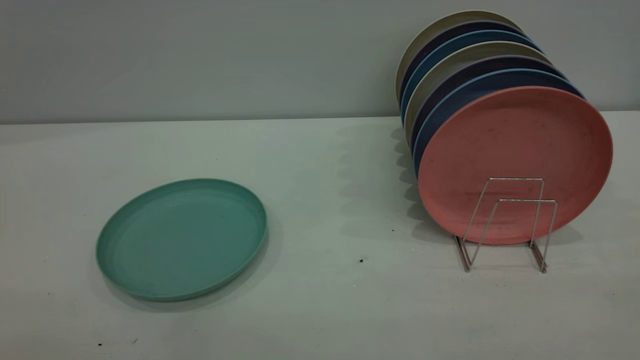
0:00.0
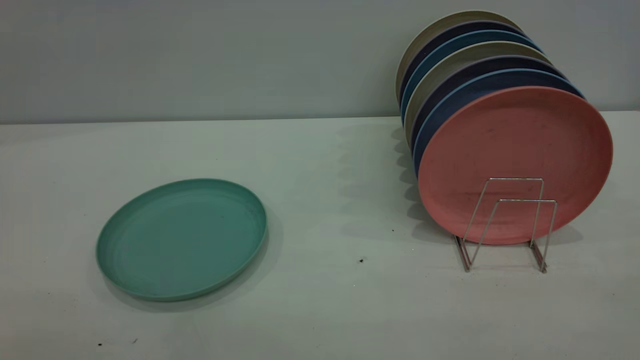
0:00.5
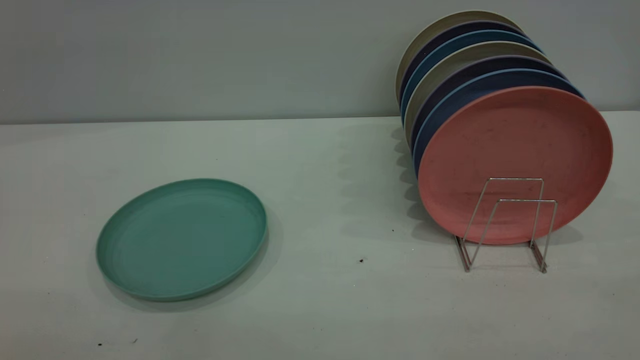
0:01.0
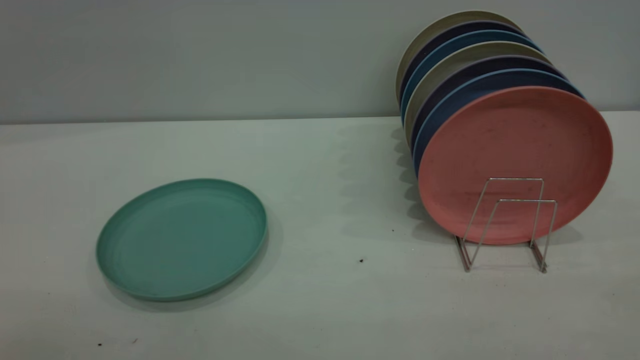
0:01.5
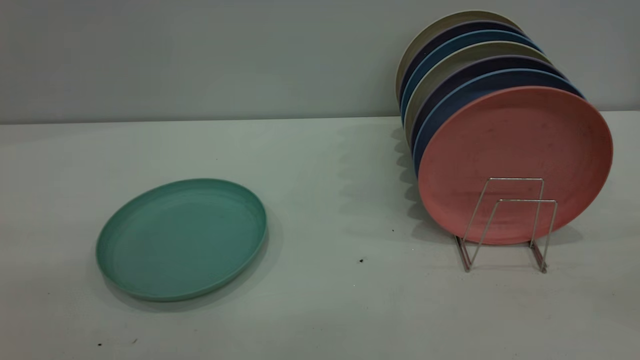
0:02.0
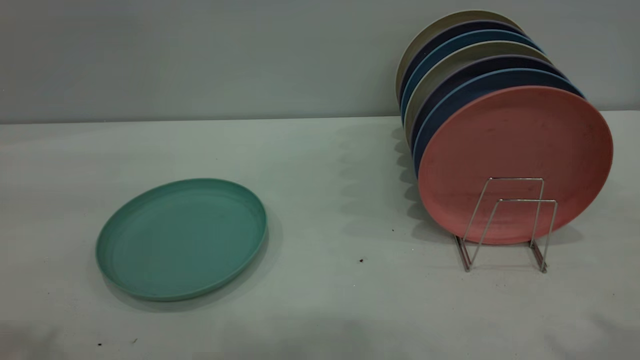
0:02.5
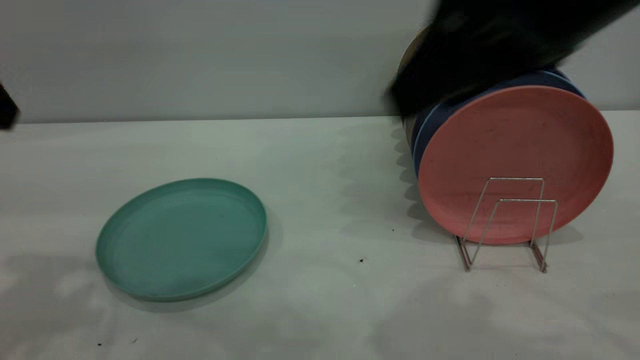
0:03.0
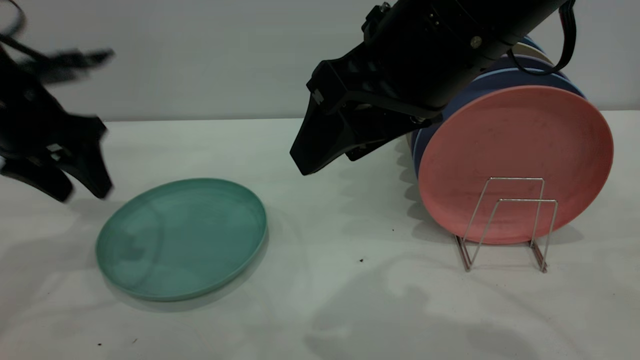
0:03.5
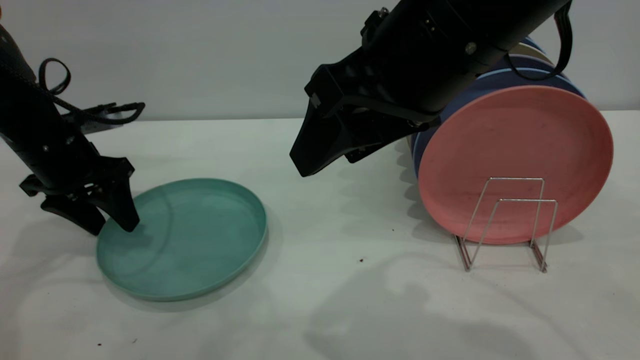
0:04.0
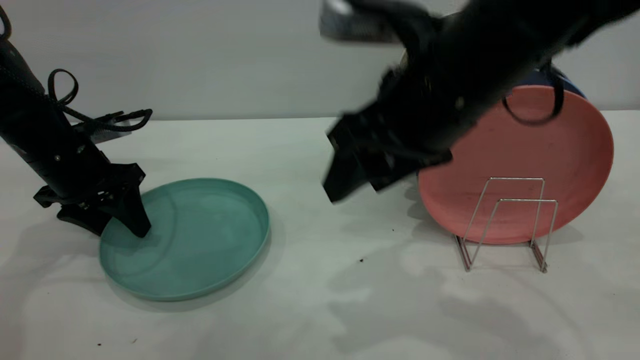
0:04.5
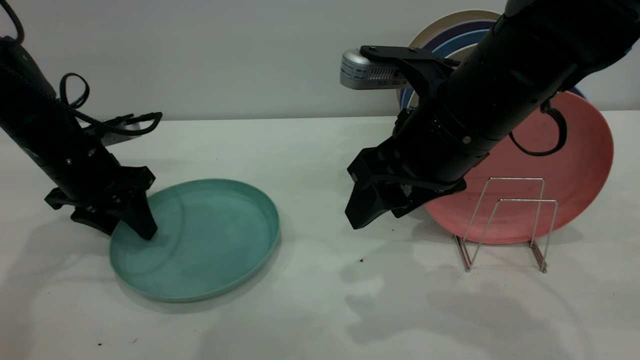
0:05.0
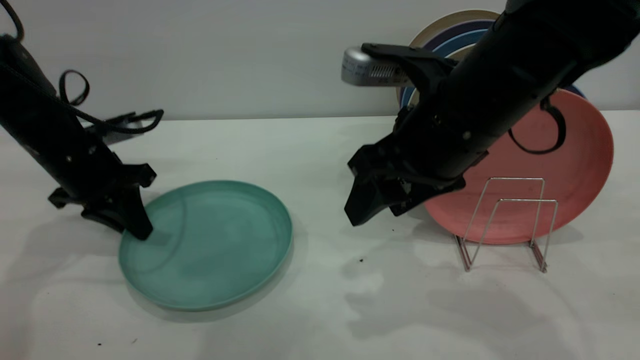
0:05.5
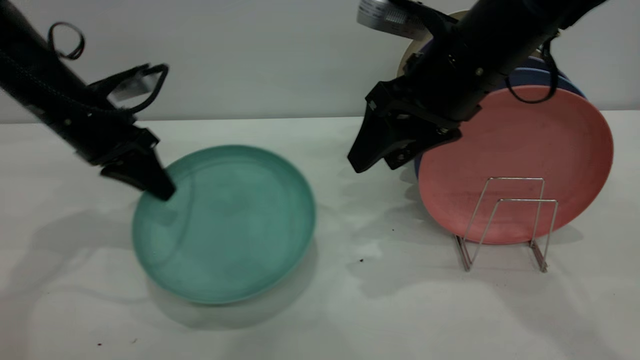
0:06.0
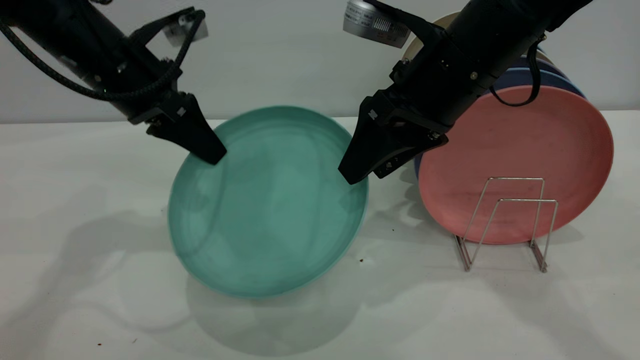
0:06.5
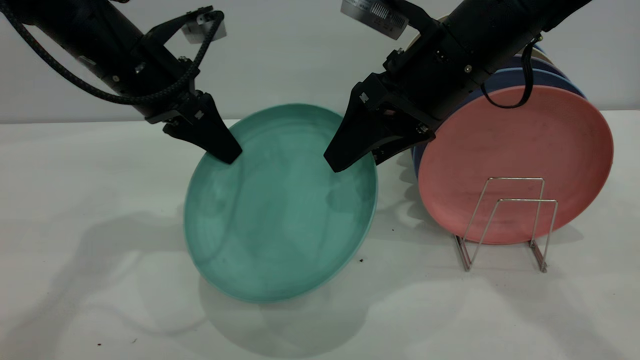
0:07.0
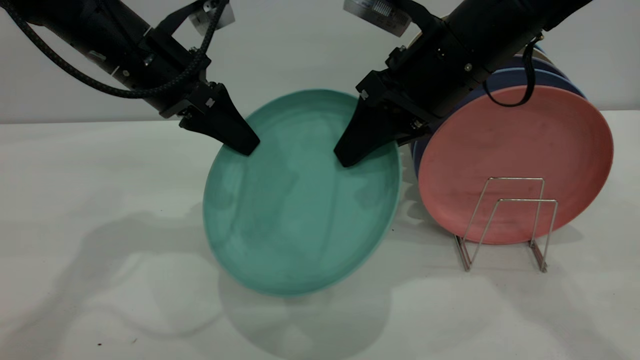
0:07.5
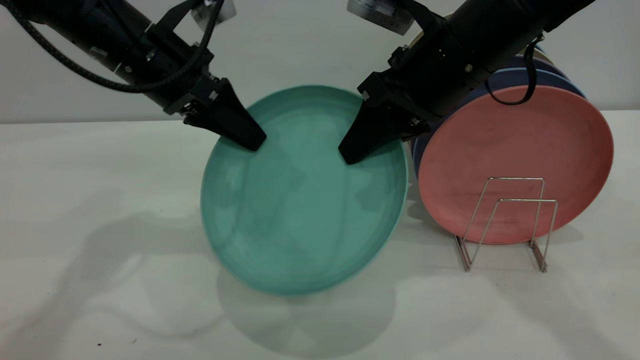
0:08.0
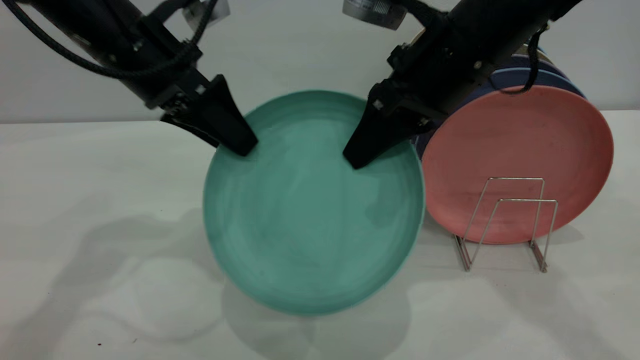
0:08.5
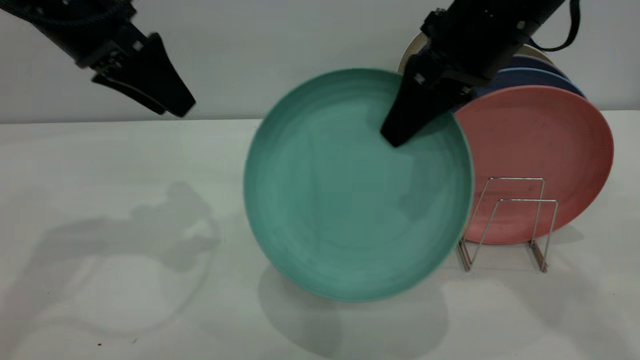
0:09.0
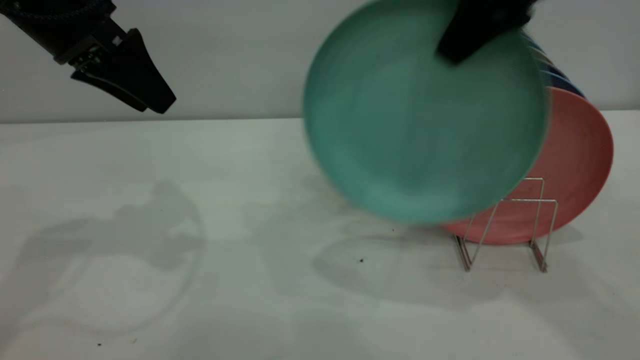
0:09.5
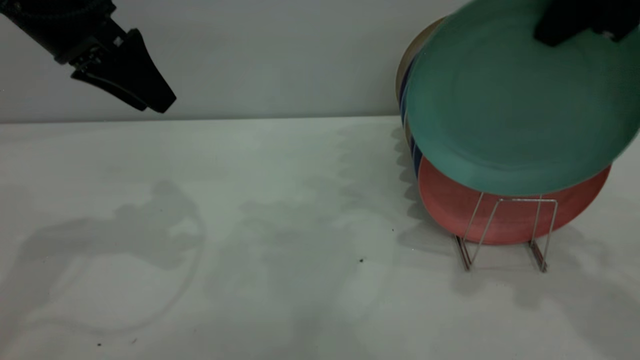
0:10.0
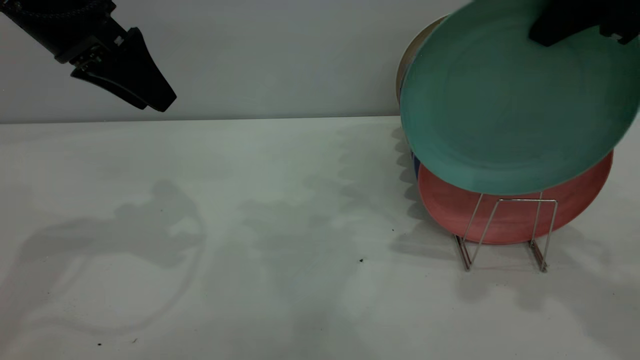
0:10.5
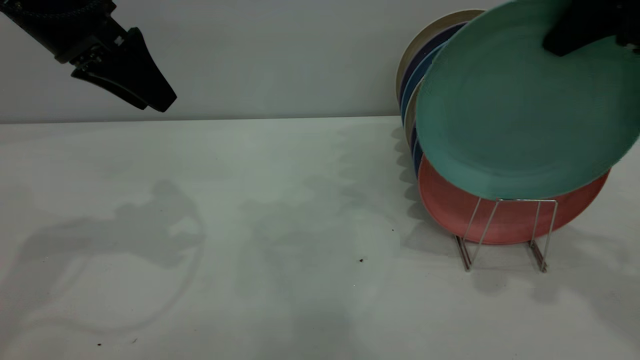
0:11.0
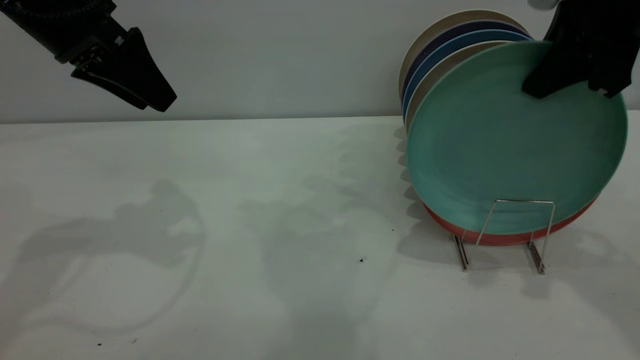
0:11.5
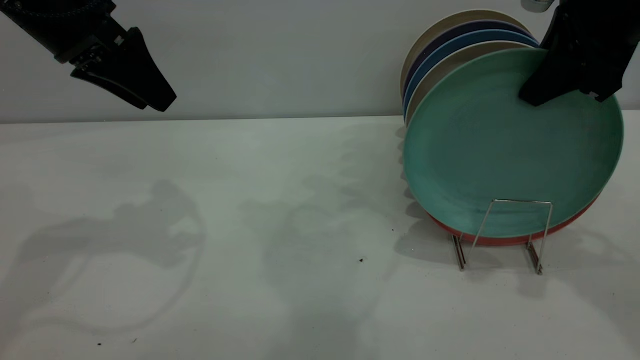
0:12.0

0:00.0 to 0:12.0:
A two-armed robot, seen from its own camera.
Task of the whole recording: the left gripper grasp the green plate, the left gripper pass the green plate to the right gripper, and the right gripper place the green plate on the plate rack.
Step, 0:00.0 to 0:05.5: Pick up the plate with the left gripper.
Step, 0:06.0 to 0:08.5: Pass the plate from the left gripper to the right gripper.
0:02.0 to 0:04.0: The left gripper goes some 40 cm forward and downward, while the right gripper moves to the left, forward and downward, about 30 cm.
0:04.0 to 0:06.0: The right gripper shifts approximately 10 cm forward and downward. Meanwhile the left gripper ends up some 5 cm from where it was, and closes up.
0:06.0 to 0:08.0: The left gripper travels to the right and upward by roughly 10 cm. The right gripper closes.
0:08.0 to 0:10.0: The right gripper travels upward and to the right by some 15 cm; the left gripper travels to the left and upward by about 10 cm, and opens its fingers.
0:10.0 to 0:12.0: The right gripper shifts some 5 cm downward.

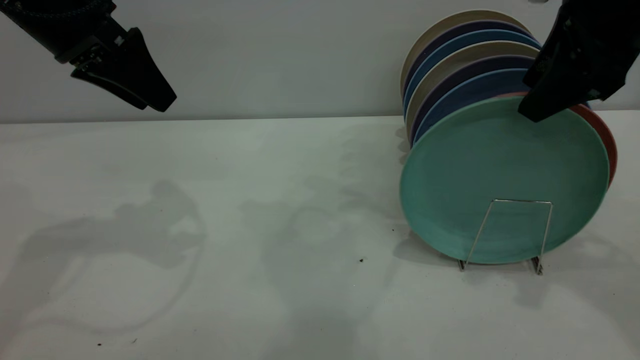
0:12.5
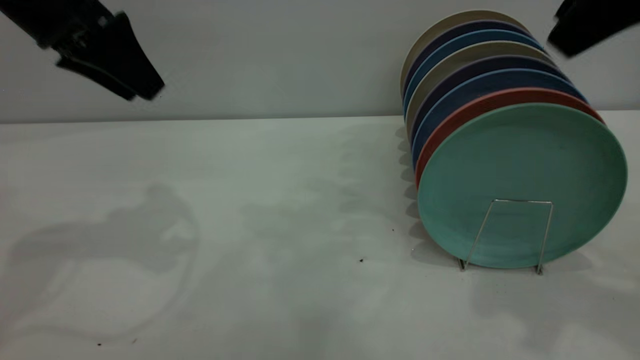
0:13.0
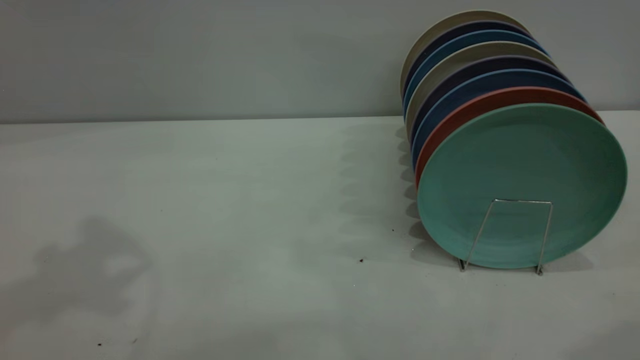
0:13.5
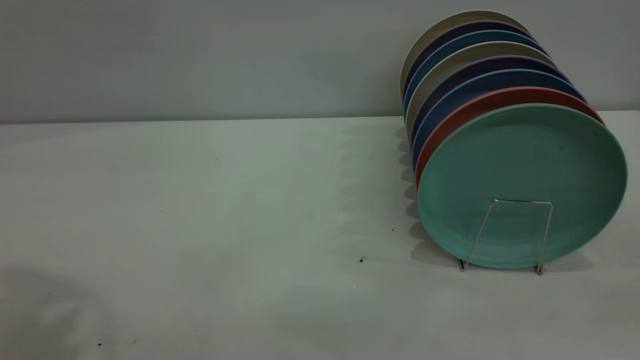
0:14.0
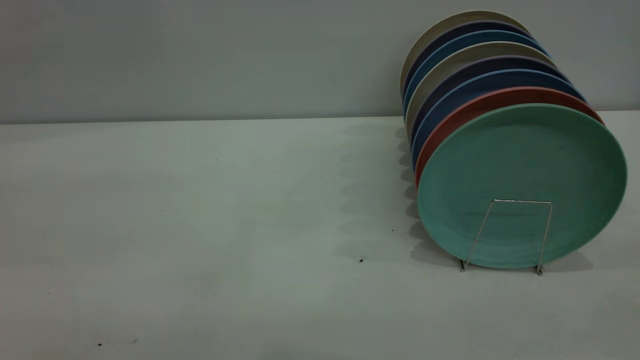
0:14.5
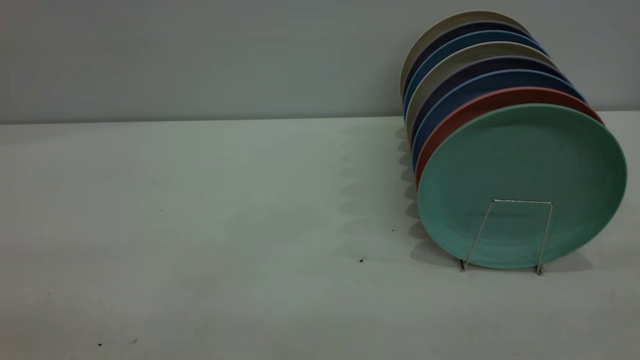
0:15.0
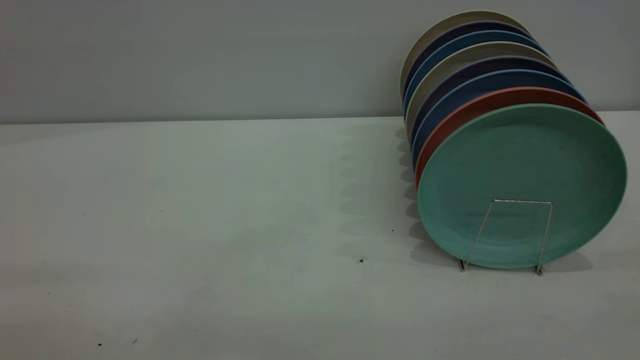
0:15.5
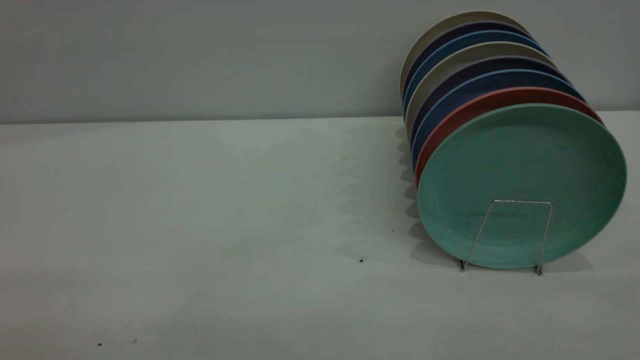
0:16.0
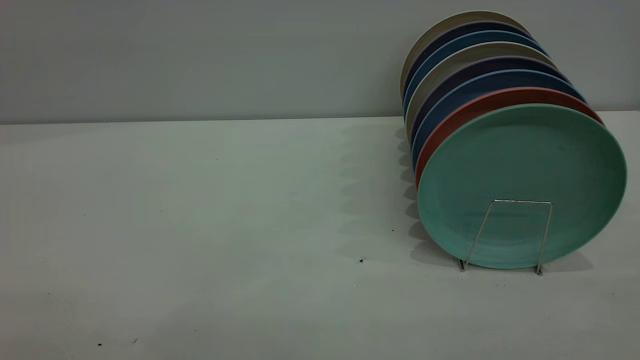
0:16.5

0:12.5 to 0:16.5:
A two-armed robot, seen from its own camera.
Task of the whole recording: the left gripper grasp the green plate, the left gripper pass the green plate to the right gripper, and the right gripper place the green plate on the plate rack.
0:12.5 to 0:14.5: The right gripper heads backward, covering about 30 cm. The left gripper shifts roughly 30 cm backward and upward.

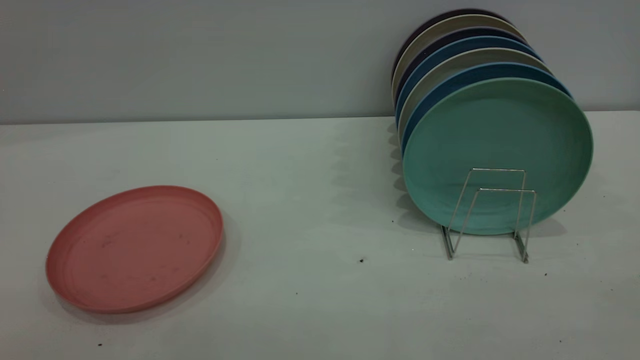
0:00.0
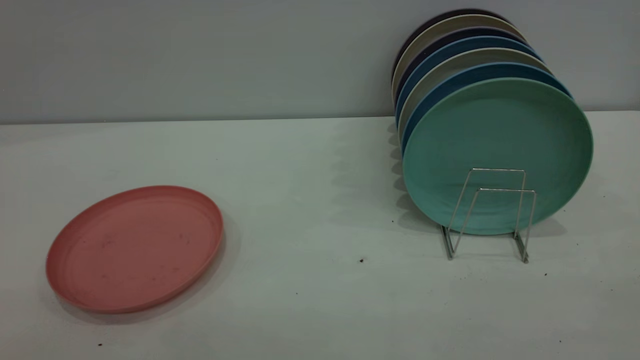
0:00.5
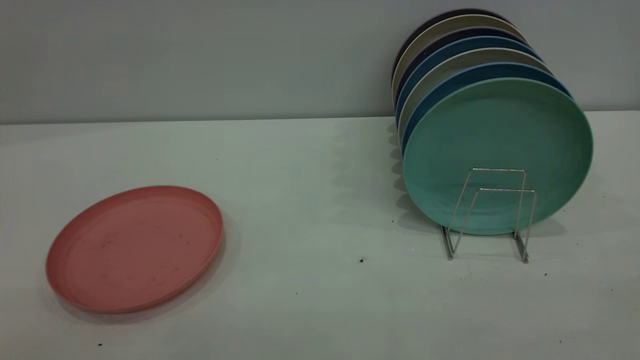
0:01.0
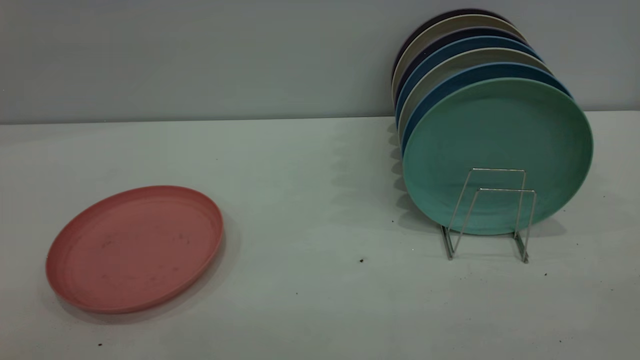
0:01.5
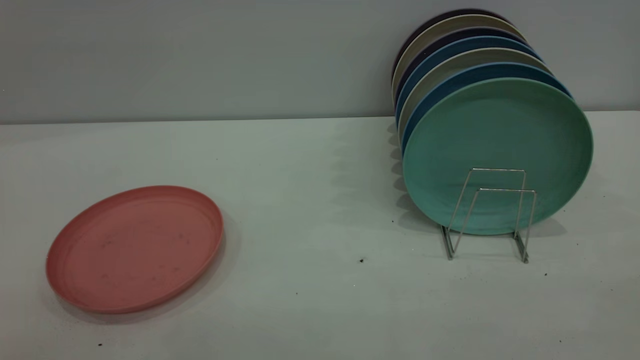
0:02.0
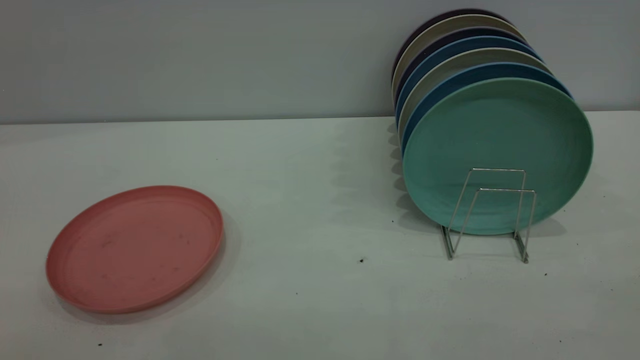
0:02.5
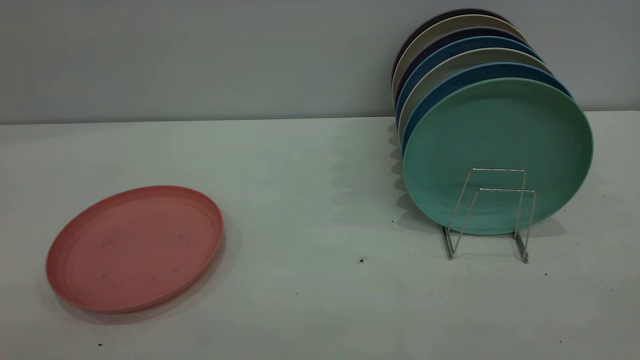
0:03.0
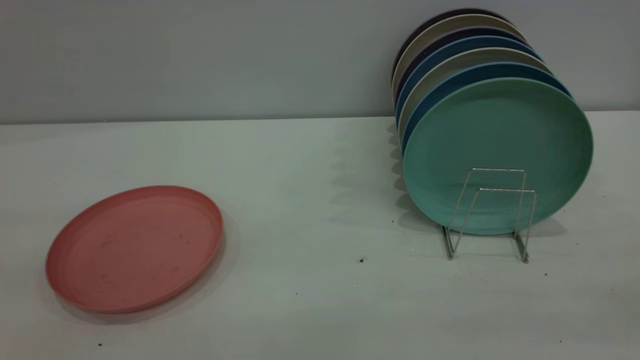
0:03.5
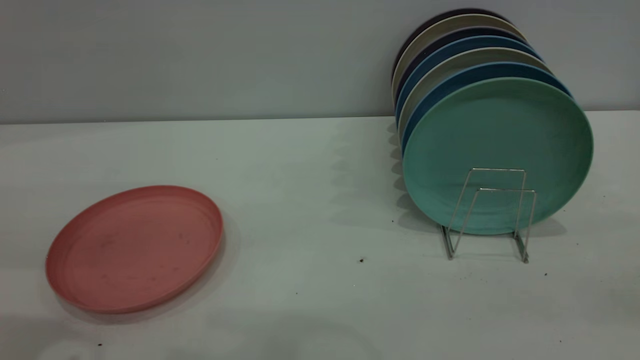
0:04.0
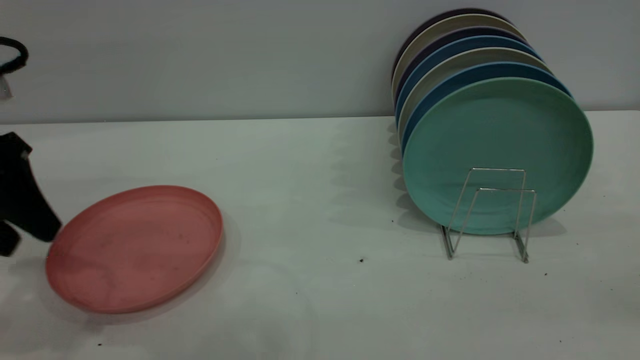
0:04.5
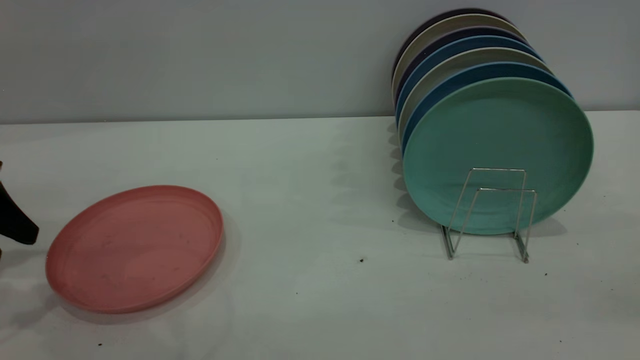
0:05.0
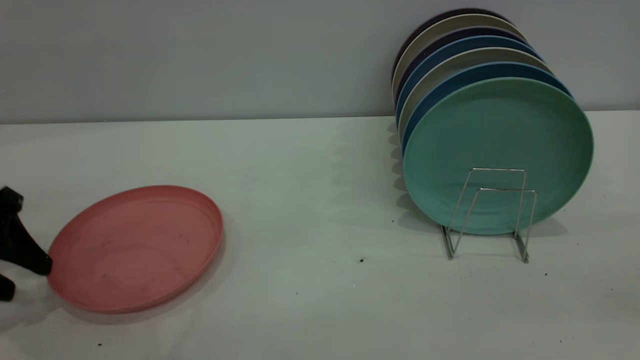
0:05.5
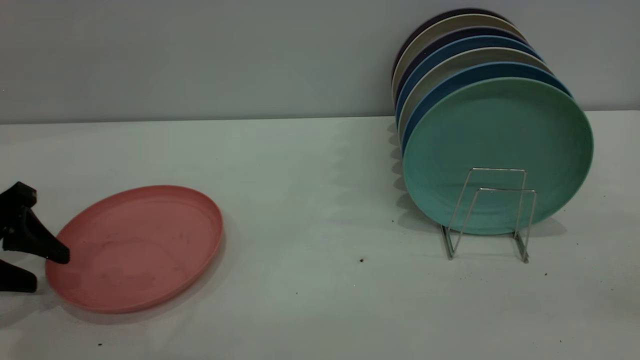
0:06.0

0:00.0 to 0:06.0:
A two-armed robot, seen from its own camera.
Task of the whole recording: put the plate on the plate rack.
0:00.0 to 0:02.0: Both grippers stay about where they are.
0:04.0 to 0:06.0: The left gripper shifts some 25 cm downward, to the left and forward.
